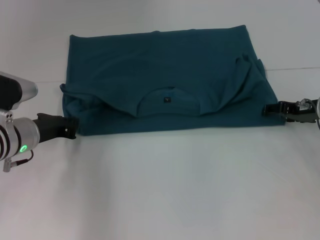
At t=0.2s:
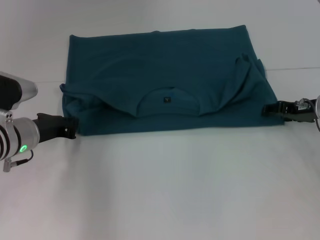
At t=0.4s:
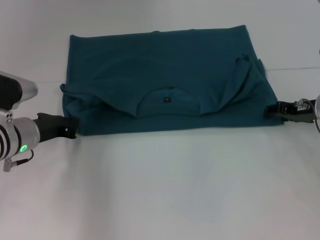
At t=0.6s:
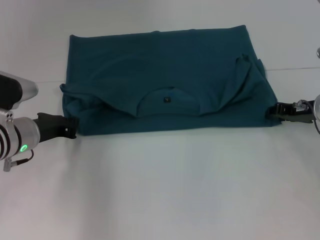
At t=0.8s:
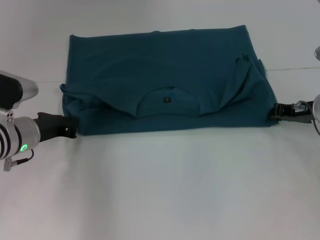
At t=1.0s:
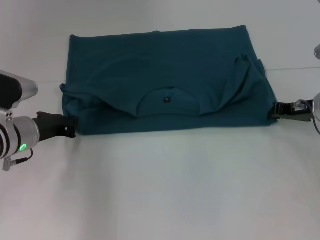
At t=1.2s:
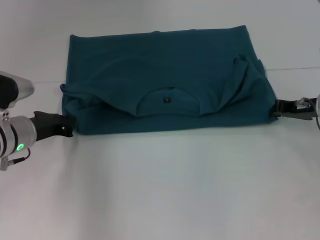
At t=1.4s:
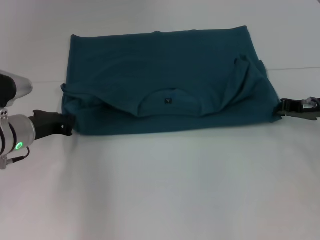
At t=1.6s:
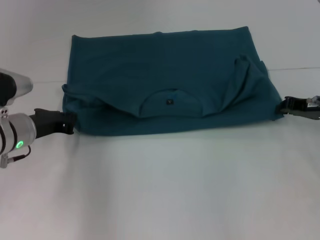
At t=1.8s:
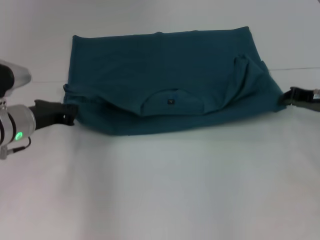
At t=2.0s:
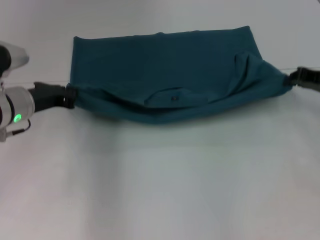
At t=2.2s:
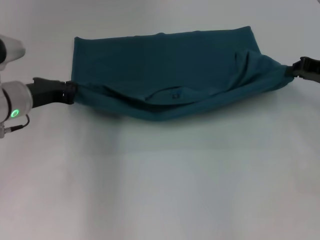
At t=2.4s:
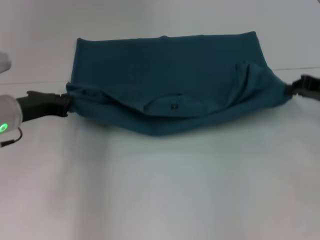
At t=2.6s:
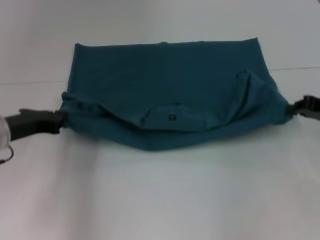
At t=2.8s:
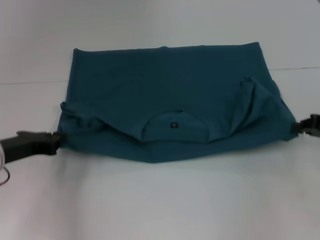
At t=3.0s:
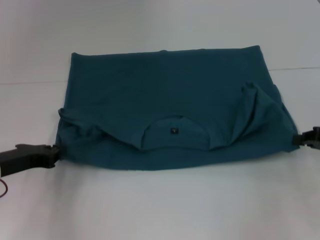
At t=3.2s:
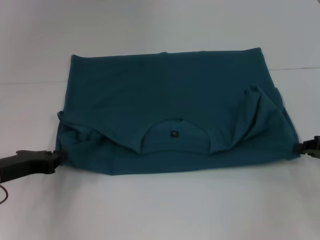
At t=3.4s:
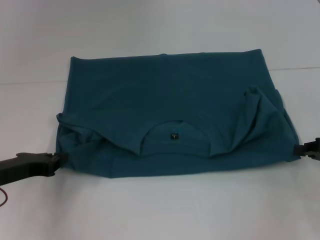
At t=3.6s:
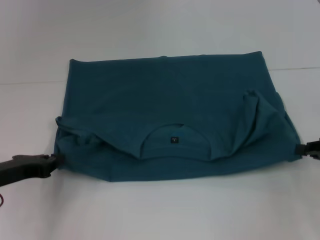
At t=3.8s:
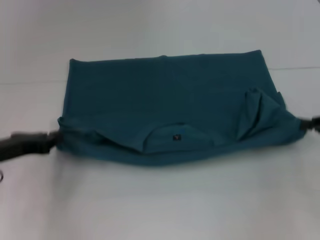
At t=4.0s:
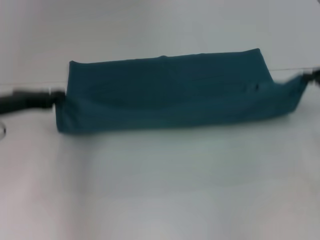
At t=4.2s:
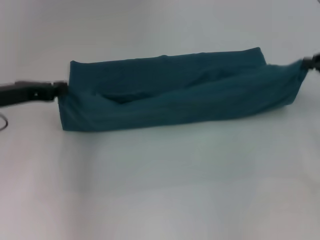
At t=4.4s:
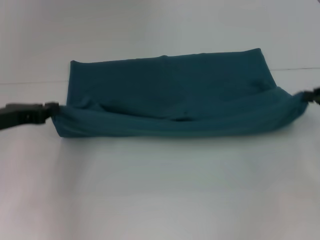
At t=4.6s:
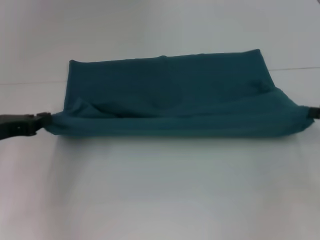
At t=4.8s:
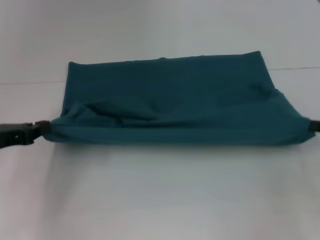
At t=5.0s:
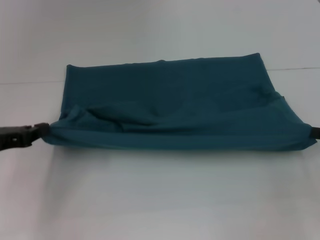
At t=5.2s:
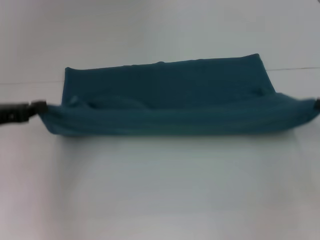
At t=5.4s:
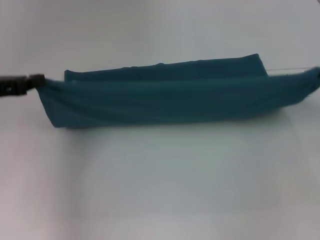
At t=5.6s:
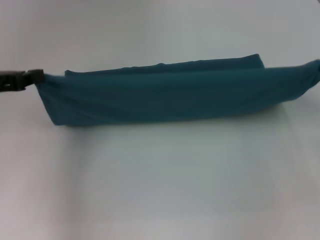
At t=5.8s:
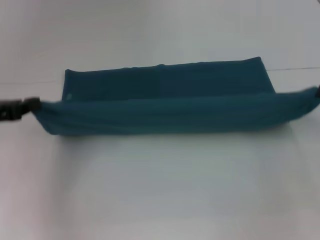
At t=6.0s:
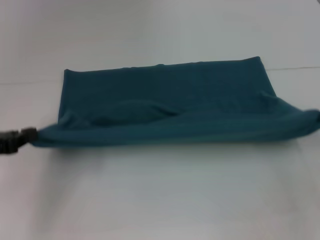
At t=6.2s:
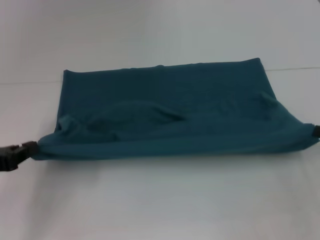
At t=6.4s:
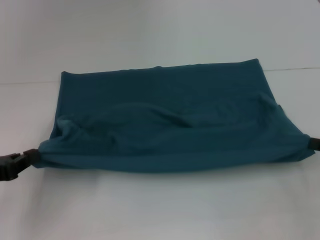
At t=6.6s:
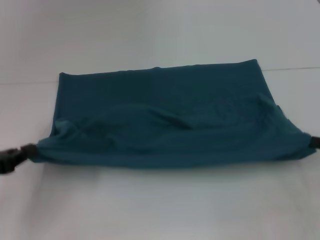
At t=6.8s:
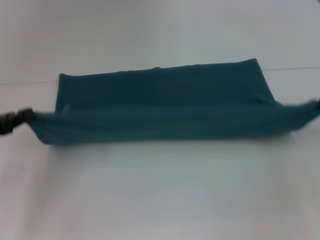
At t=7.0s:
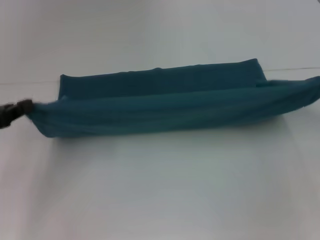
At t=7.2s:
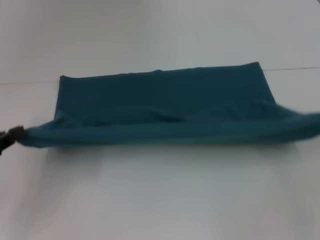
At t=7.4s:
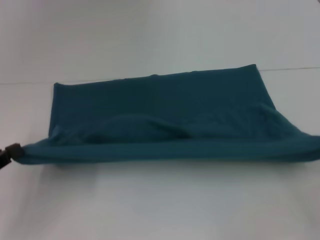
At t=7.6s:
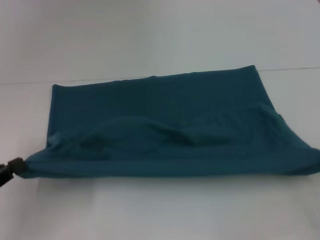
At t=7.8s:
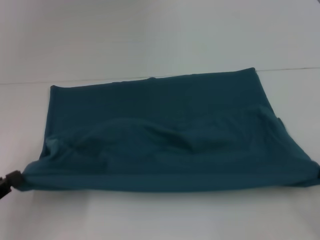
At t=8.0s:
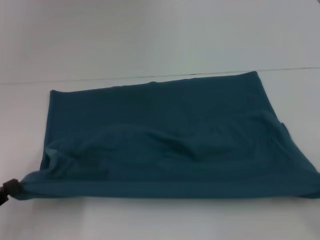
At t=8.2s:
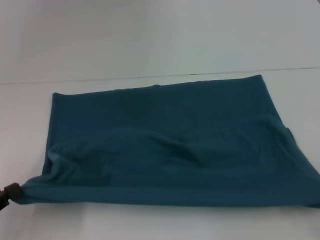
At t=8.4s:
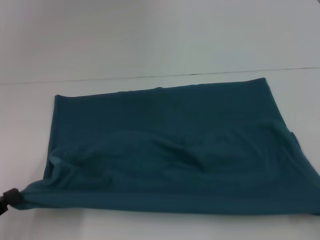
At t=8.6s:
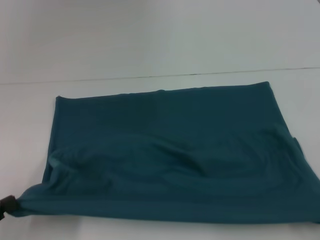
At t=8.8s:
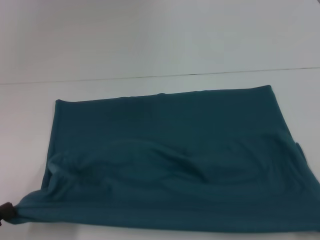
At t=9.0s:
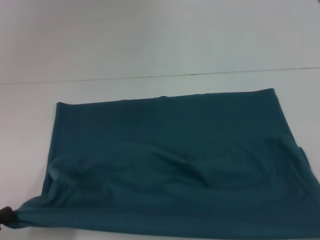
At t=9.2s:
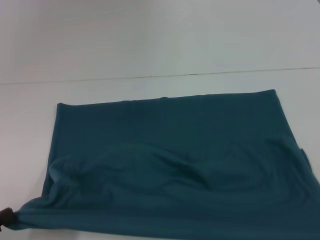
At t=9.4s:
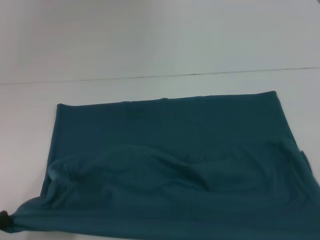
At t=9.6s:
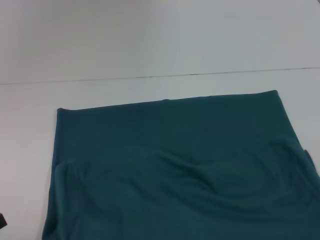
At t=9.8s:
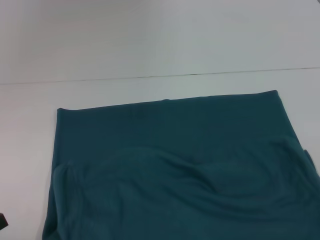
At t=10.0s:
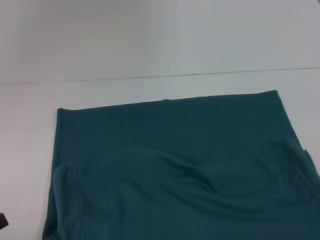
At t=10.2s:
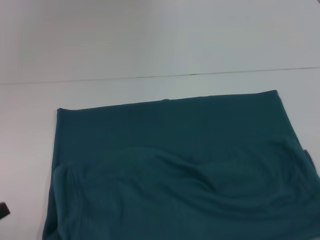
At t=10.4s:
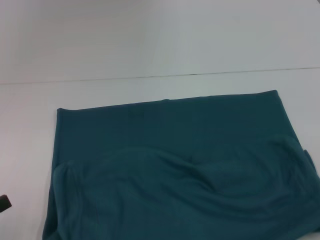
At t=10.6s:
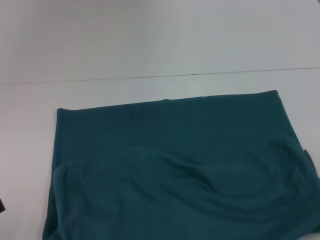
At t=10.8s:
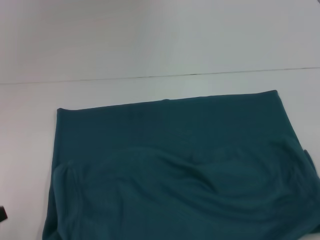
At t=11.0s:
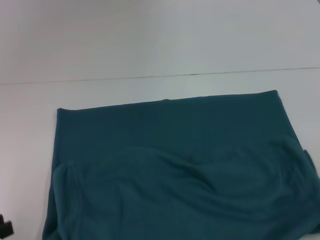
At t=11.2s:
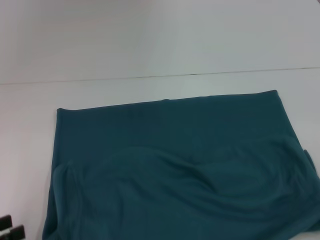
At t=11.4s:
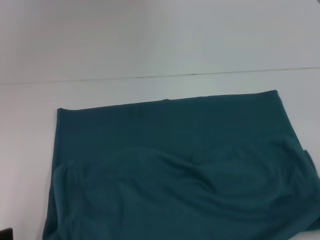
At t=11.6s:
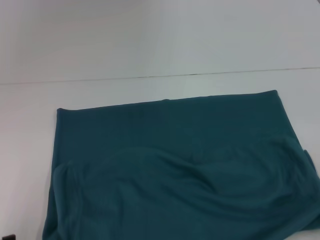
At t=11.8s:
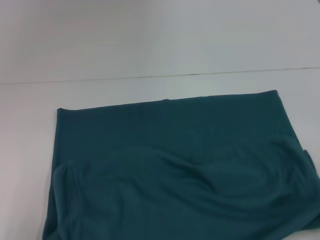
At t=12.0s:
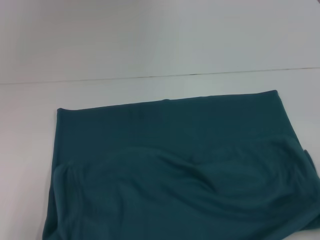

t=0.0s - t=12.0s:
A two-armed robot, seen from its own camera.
Step, t=0.0s - t=8.8s: Pull the clothes with your left hand.
Step, t=0.0s - t=8.8s: Pull the clothes with your right hand.
t=0.0s - t=1.6s: The right gripper closes.
t=1.6s - t=3.0s: Both grippers travel together backward, approximately 10 cm.
t=4.4s - t=6.0s: The two grippers go approximately 5 cm backward.
t=6.0s - t=7.6s: The left gripper heads backward, covering roughly 5 cm. The right gripper moves about 5 cm.
t=7.6s - t=9.0s: The left gripper goes approximately 5 cm backward, while the right gripper travels backward by approximately 10 cm.
t=9.0s - t=10.4s: The grippers move only a little.

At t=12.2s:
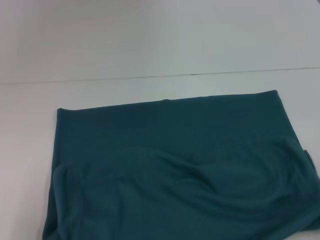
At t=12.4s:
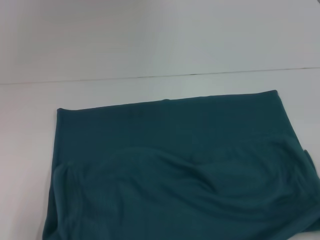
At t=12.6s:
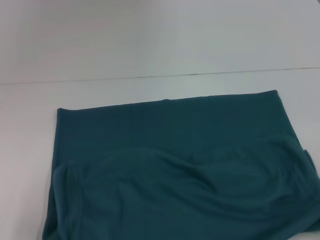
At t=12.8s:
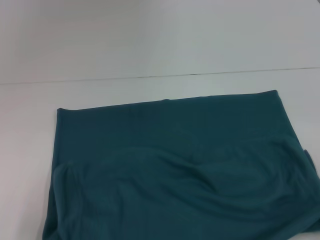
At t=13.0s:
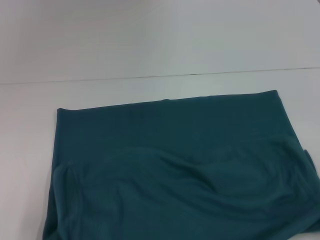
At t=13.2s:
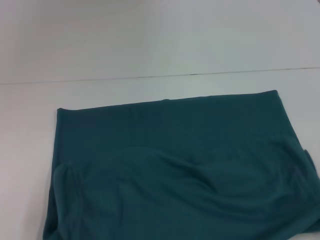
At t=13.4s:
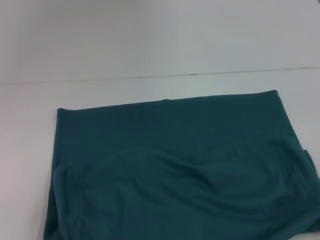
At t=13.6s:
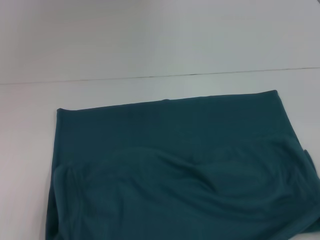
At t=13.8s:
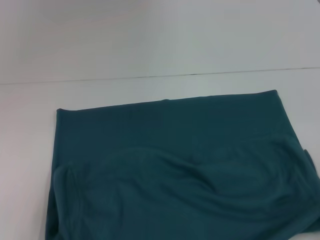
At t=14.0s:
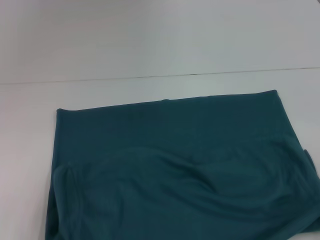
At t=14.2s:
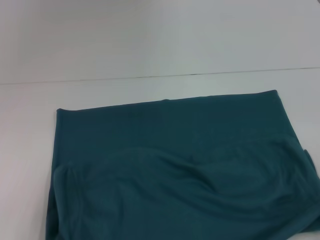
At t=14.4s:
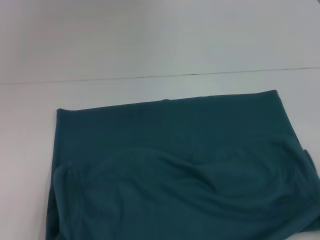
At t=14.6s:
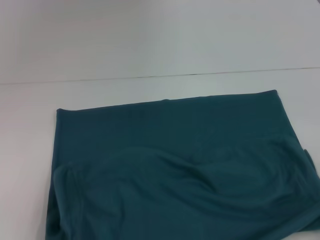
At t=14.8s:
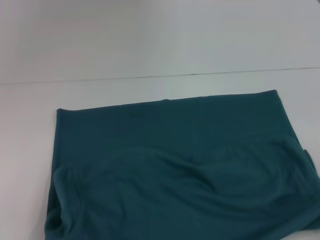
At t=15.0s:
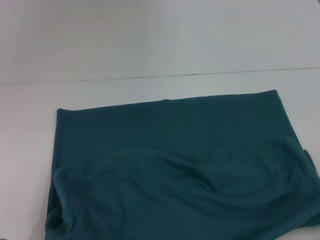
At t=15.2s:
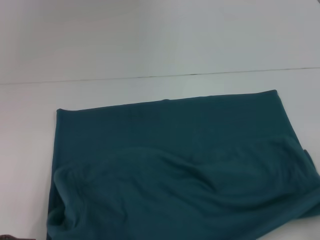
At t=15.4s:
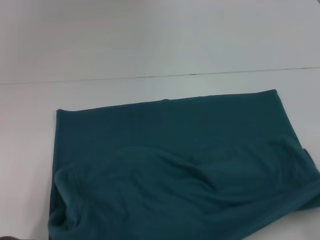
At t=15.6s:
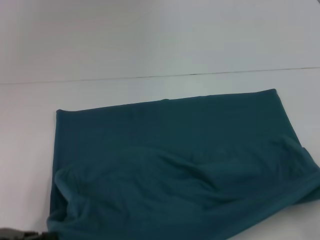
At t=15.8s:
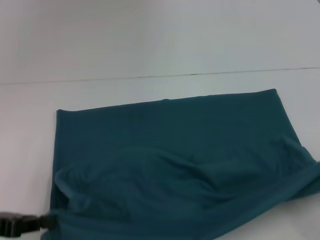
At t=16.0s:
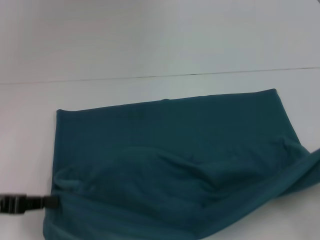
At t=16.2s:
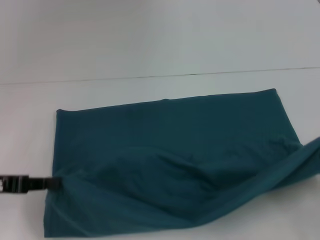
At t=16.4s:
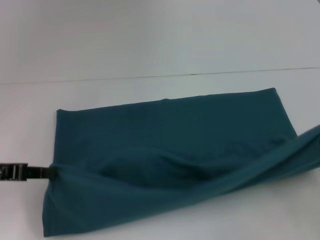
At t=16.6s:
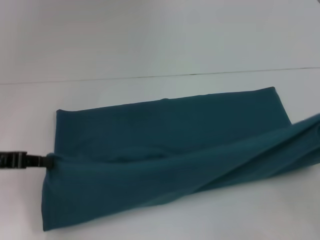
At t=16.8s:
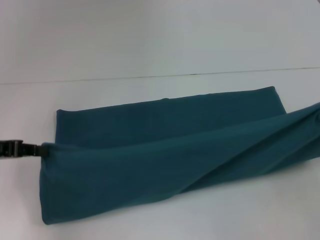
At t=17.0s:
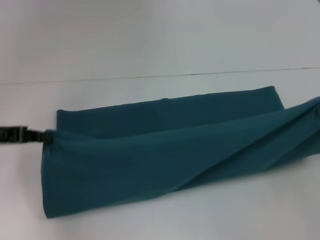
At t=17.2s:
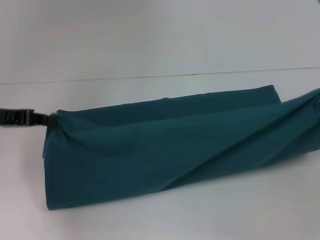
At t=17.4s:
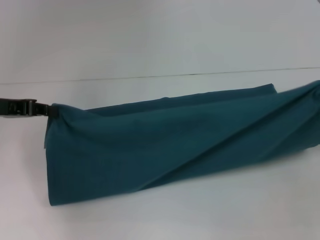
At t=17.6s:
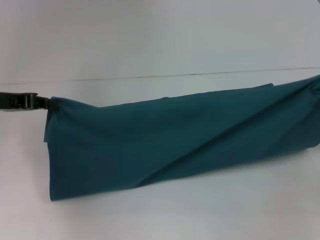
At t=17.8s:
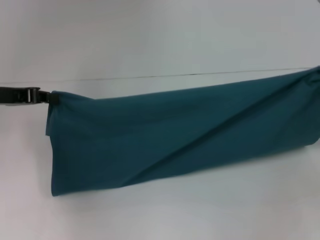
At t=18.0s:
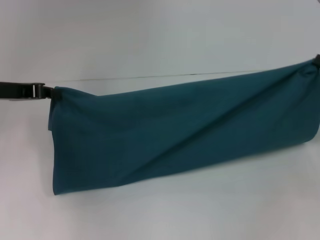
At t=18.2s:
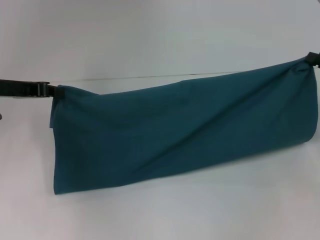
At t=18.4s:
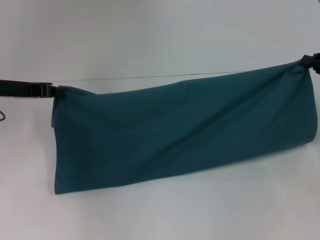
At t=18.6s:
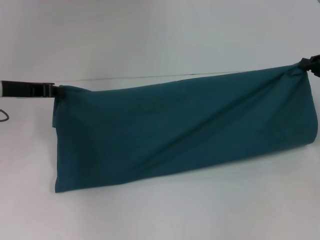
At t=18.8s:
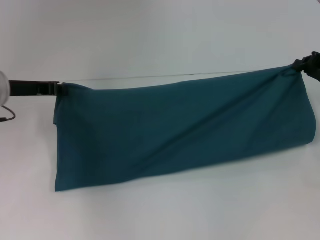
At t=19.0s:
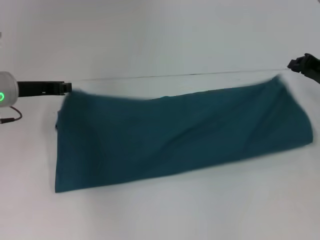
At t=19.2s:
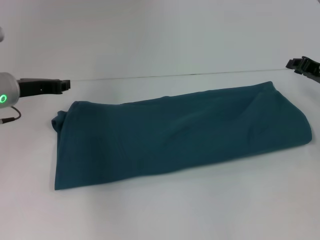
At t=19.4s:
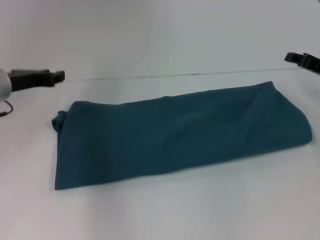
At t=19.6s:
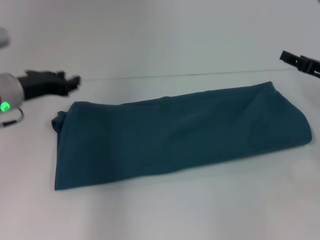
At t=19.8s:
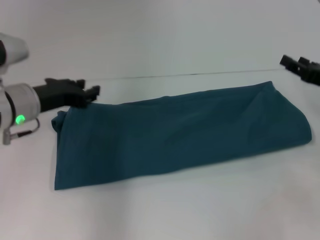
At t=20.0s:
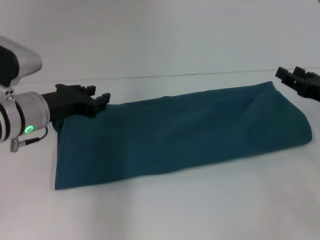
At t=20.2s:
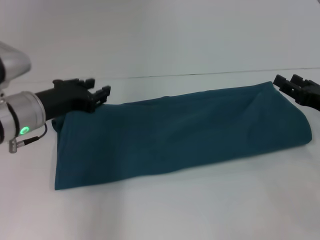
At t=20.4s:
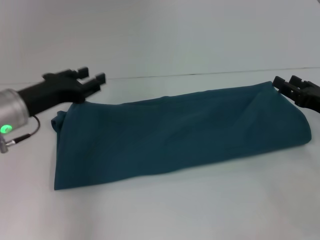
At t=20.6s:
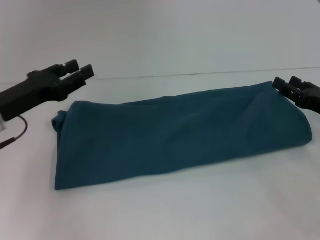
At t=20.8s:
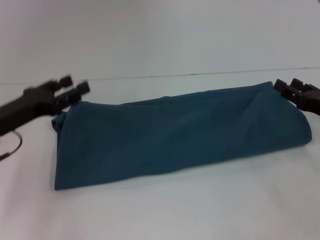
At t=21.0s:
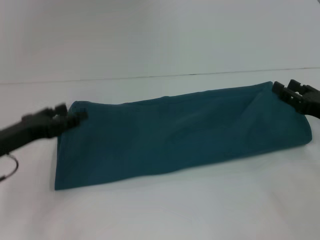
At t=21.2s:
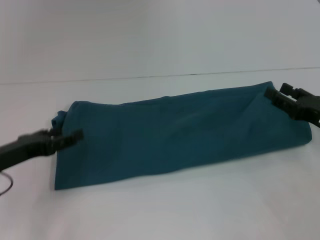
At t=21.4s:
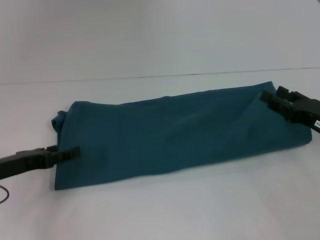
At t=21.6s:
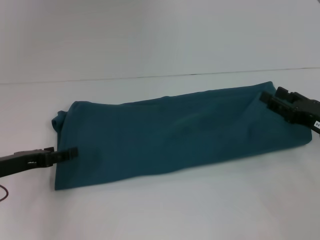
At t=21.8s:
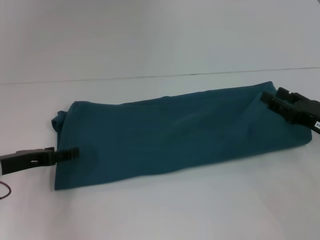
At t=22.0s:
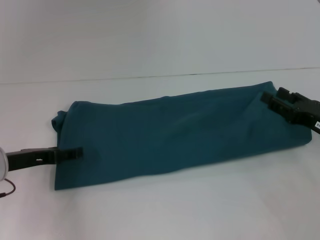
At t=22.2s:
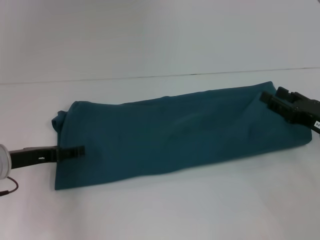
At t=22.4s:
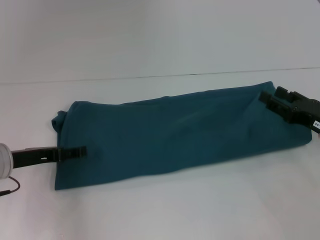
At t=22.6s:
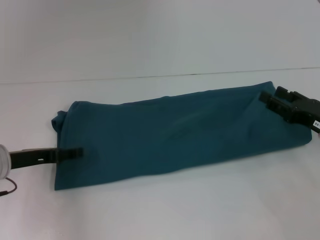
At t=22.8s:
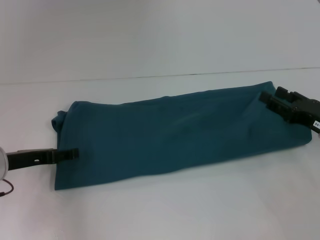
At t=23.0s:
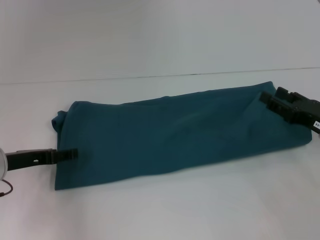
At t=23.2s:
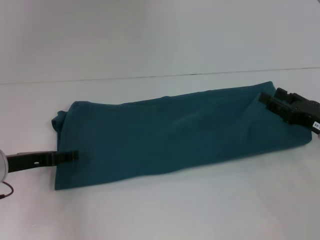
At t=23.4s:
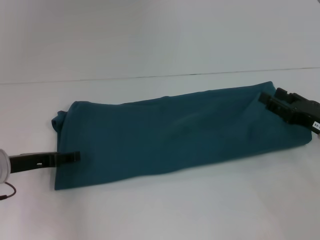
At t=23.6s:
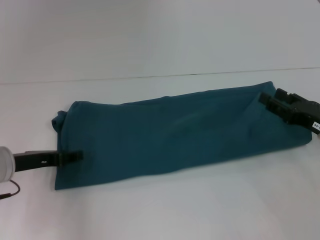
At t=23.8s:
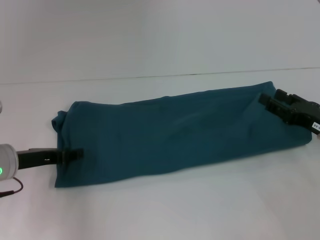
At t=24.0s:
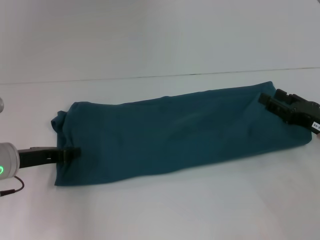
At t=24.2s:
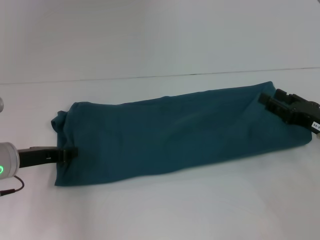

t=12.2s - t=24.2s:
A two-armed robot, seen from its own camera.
Step, t=12.2s - t=19.2s: Fold the clothes to the left.
Step, t=12.2s - t=19.2s: Fold the clothes to the right.
t=13.8s - t=15.2s: The left gripper closes.
t=15.2s - t=16.6s: The two grippers go approximately 10 cm forward.
t=16.6s - t=18.2s: Both grippers travel together forward, roughly 10 cm.
t=18.2s - t=19.8s: The right gripper shifts by approximately 5 cm, and opens its fingers, while the left gripper heads to the right, covering about 5 cm, and opens.
t=19.8s - t=21.2s: The right gripper changes place by roughly 5 cm. Meanwhile the left gripper moves to the left, backward and downward, roughly 10 cm, and opens its fingers.
t=22.6s - t=24.2s: The left gripper closes up.
